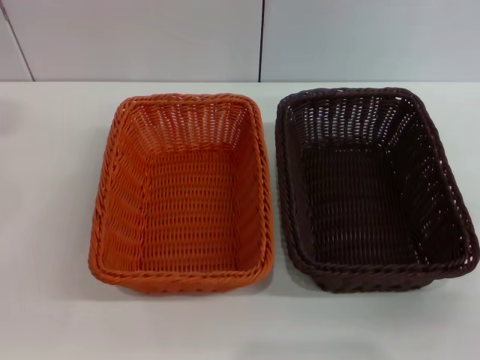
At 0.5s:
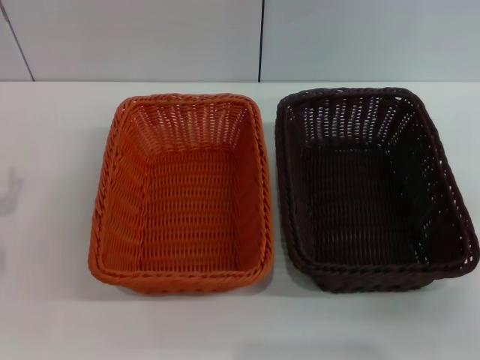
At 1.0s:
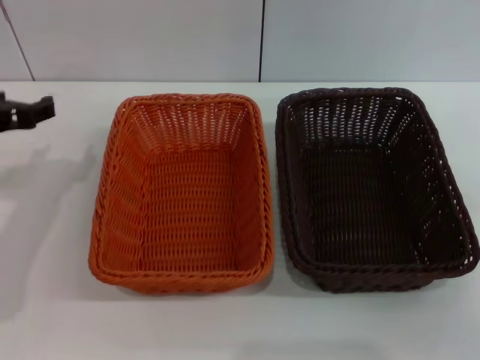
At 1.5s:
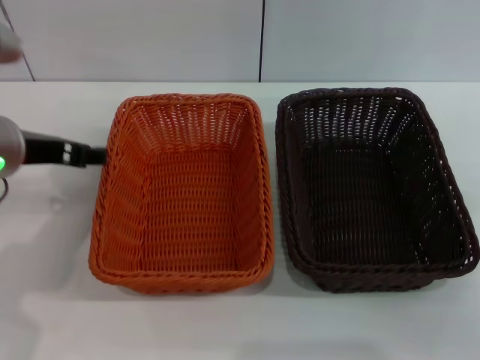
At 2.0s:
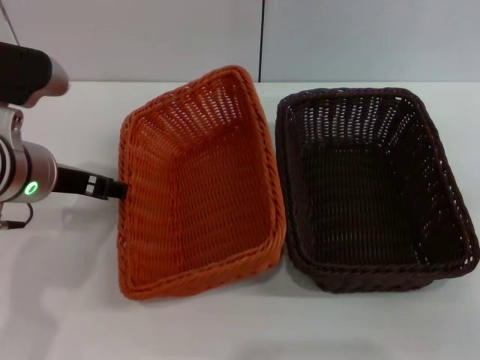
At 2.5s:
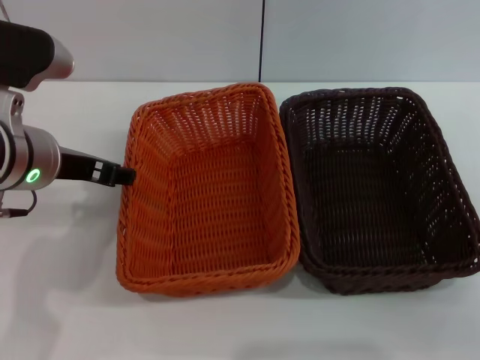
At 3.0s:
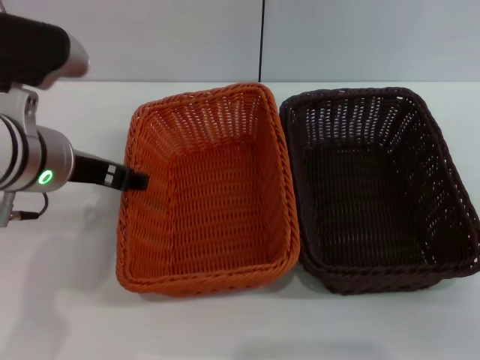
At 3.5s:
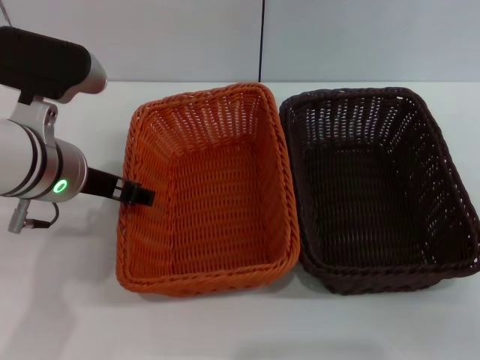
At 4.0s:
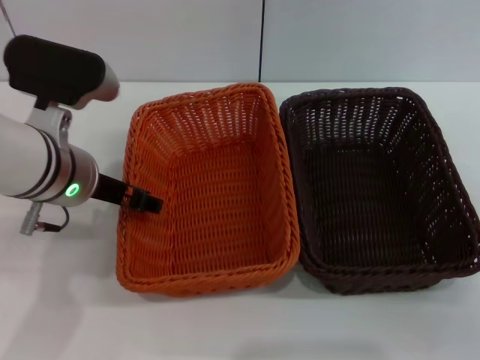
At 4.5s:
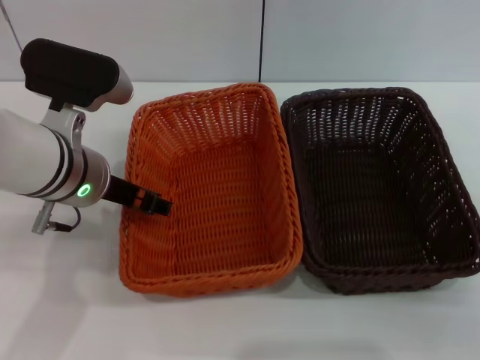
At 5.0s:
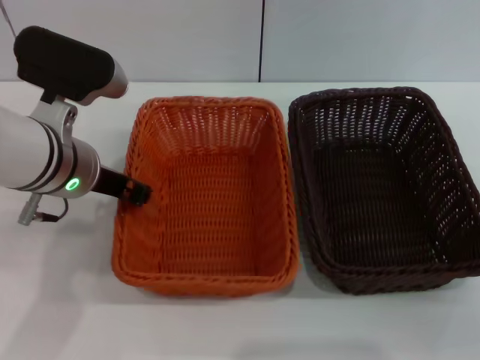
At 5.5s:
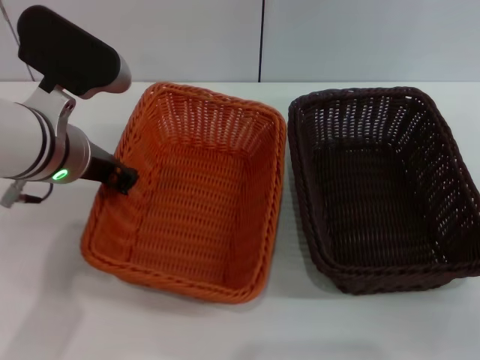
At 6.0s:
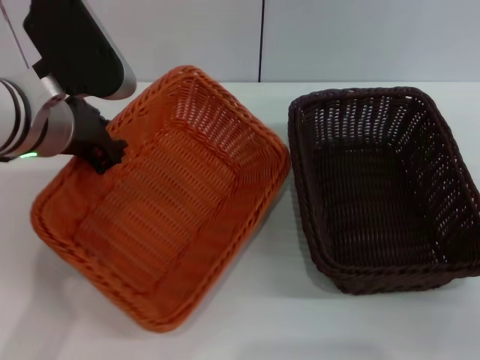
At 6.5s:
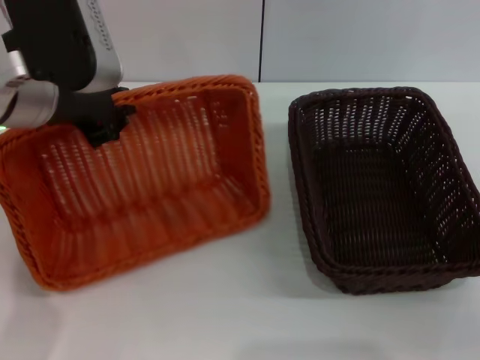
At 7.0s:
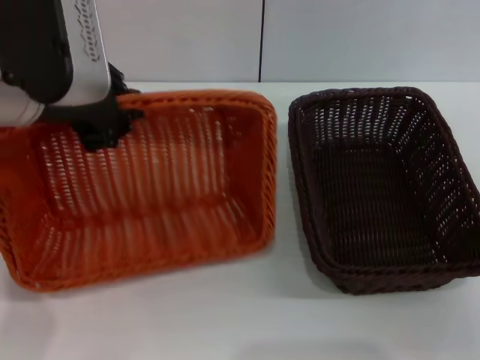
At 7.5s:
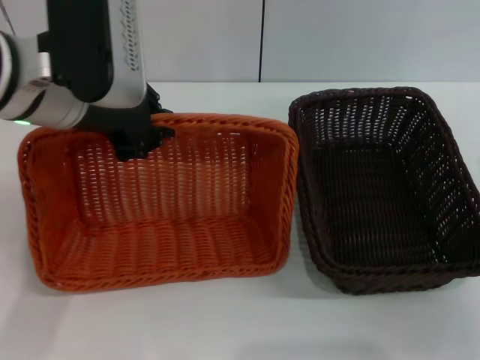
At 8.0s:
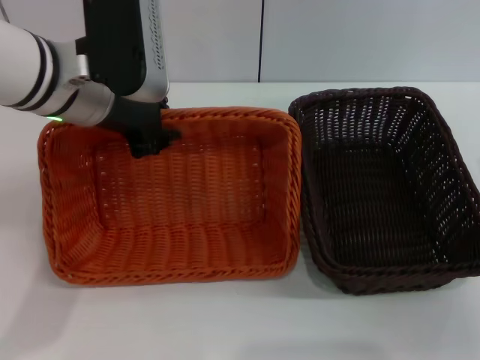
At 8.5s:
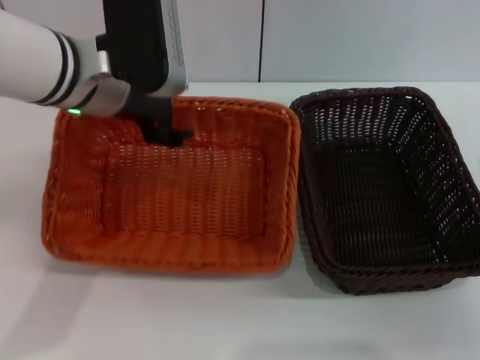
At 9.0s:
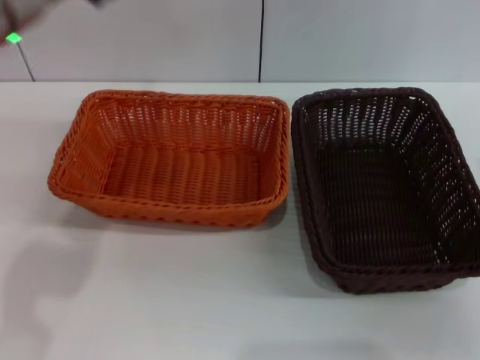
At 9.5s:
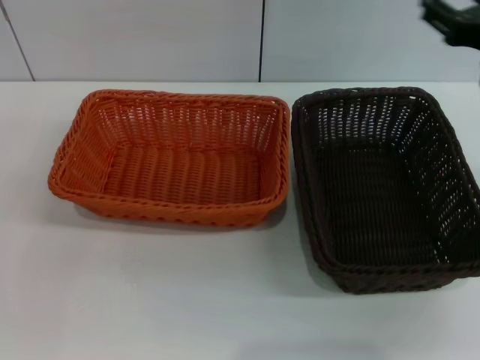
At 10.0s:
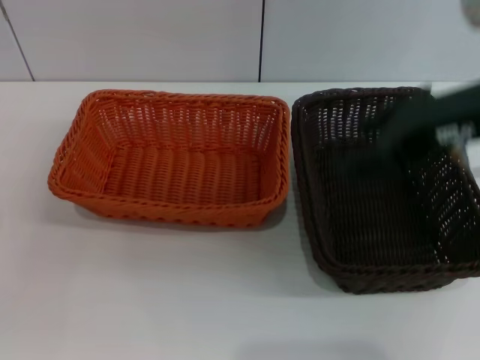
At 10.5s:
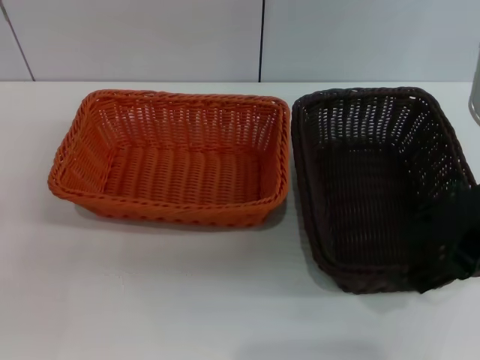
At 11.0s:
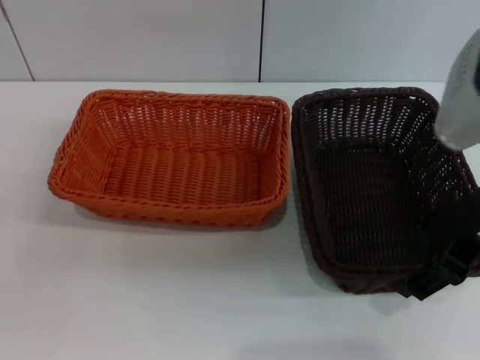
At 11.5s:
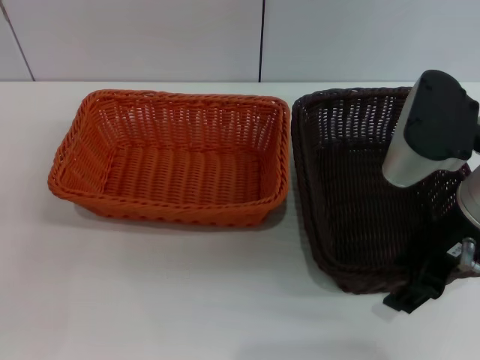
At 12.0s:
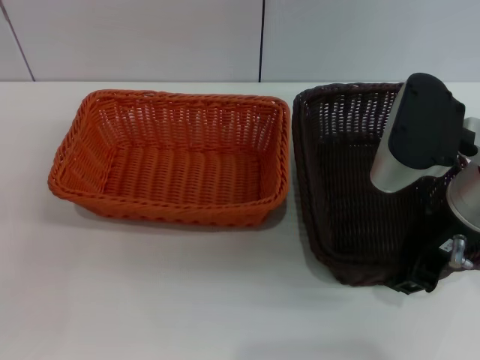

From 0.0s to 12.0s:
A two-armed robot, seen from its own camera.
Step, from 0.0s to 5.5s: Pick up the light basket with the left gripper.
Step, from 6.0s to 8.5s: Place the light basket in the center of view with the left gripper.
From 0.0s to 2.0s: The left gripper moves upward, to the right and forward, about 20 cm.
From 2.0s to 4.0s: The grippers move only a little.
From 4.0s to 6.0s: The left gripper closes.
From 8.0s to 10.0s: The left gripper moves to the left, downward and backward, approximately 30 cm, and opens up. The right gripper shifts some 20 cm upward and to the left.
From 10.0s to 12.0s: The right gripper goes about 5 cm downward, and closes.

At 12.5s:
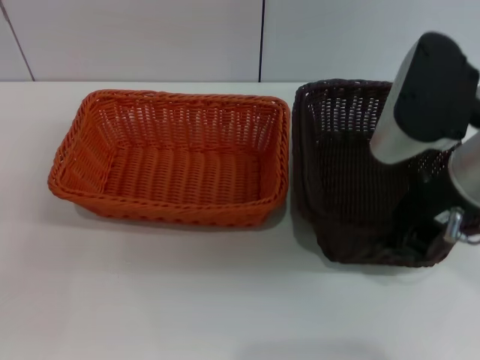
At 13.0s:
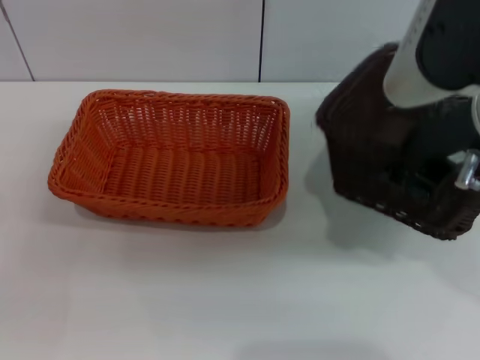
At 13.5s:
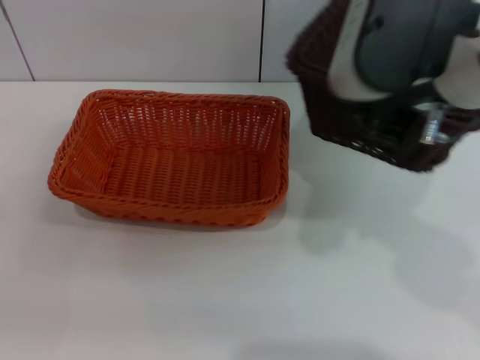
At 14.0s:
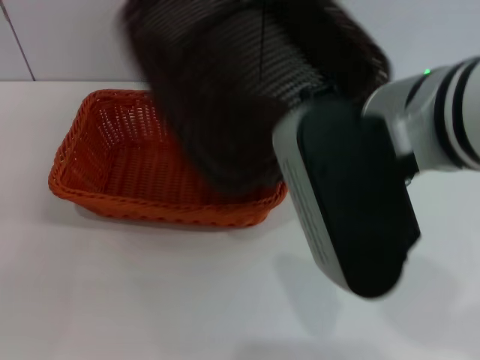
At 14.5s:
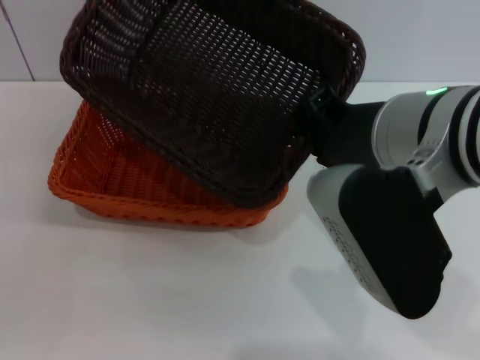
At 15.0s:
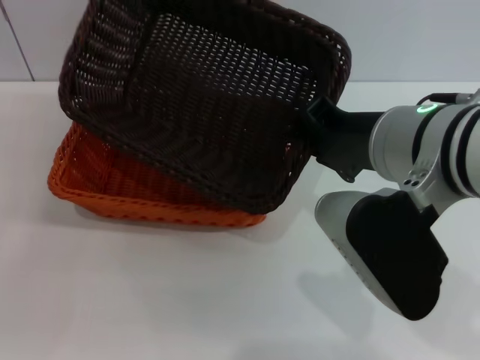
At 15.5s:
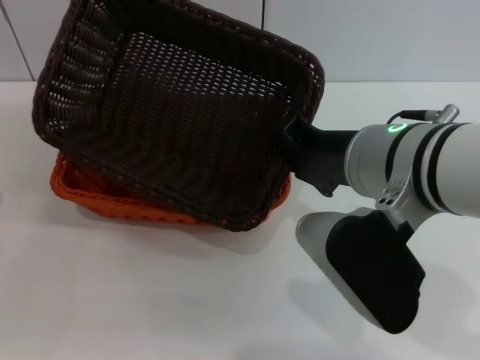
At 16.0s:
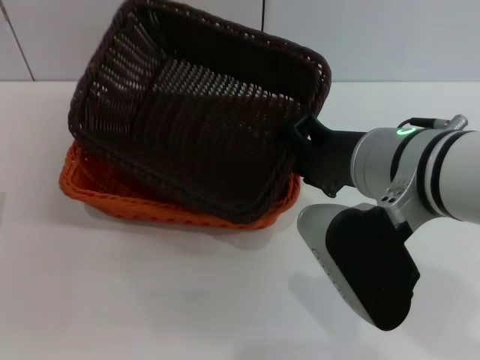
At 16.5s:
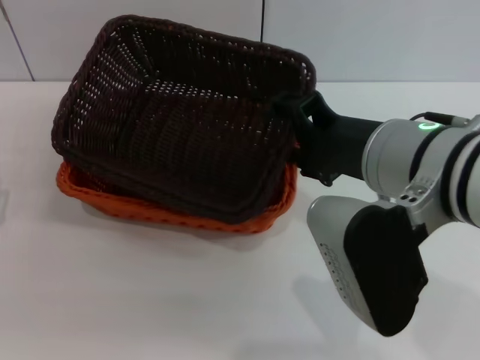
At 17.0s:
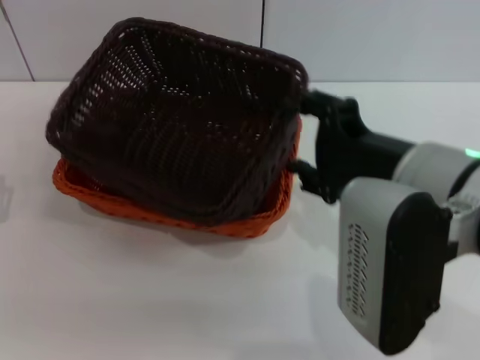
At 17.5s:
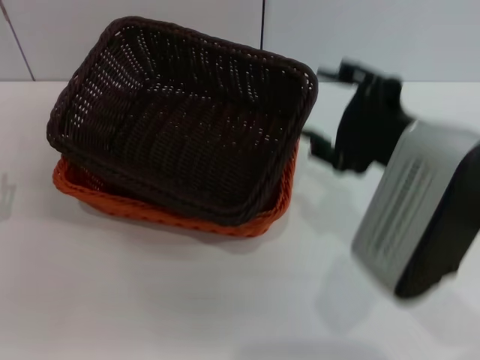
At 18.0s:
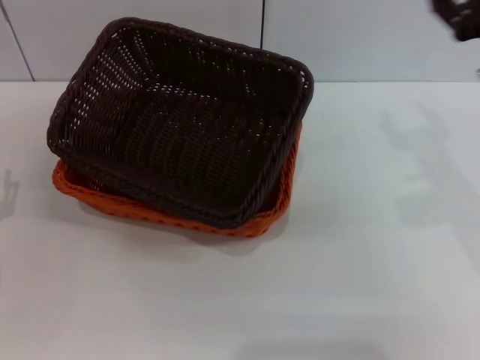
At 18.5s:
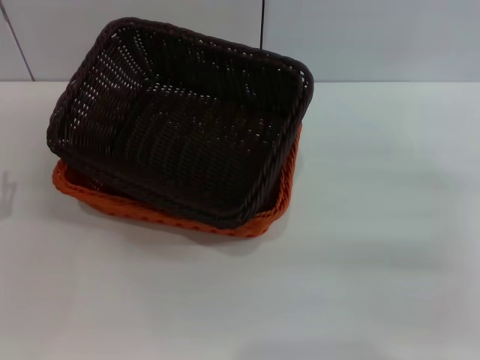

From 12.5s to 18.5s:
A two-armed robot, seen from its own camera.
Step, from 13.0s to 16.5s: Place the dark basket on the light basket with the right gripper.
From 12.5s to 14.5s: The right gripper moves to the left, roughly 5 cm.
From 14.5s to 16.5s: The right gripper opens its fingers.
From 16.5s to 18.5s: The right gripper is displaced to the right and downward by about 25 cm.

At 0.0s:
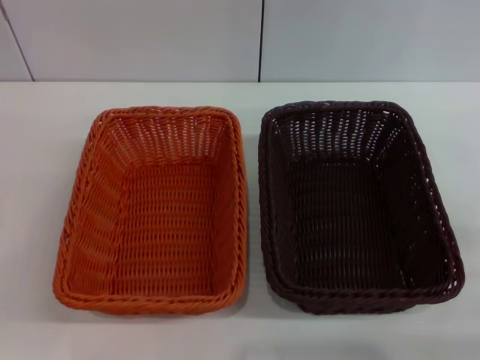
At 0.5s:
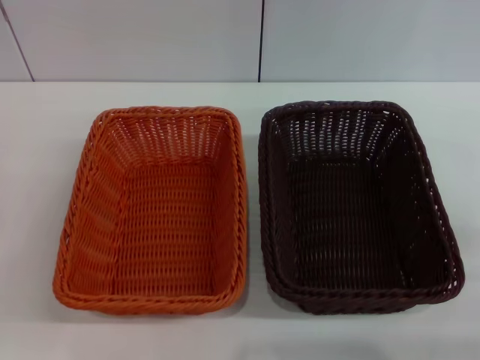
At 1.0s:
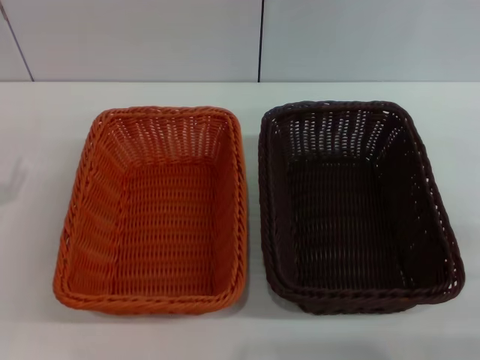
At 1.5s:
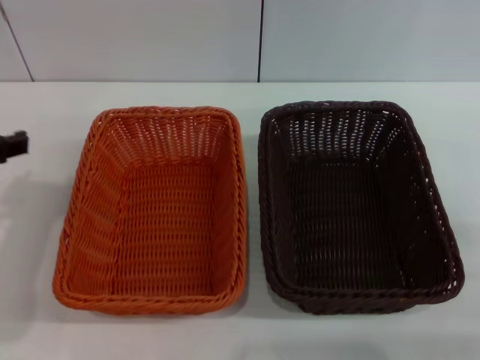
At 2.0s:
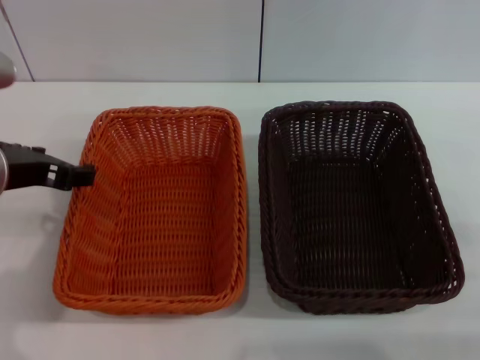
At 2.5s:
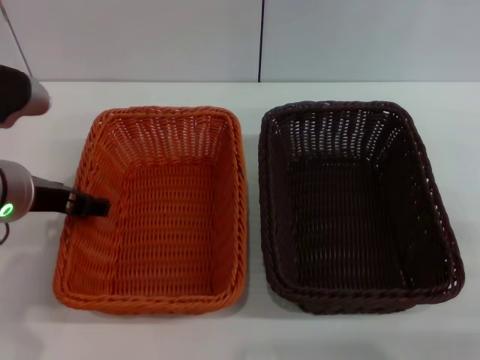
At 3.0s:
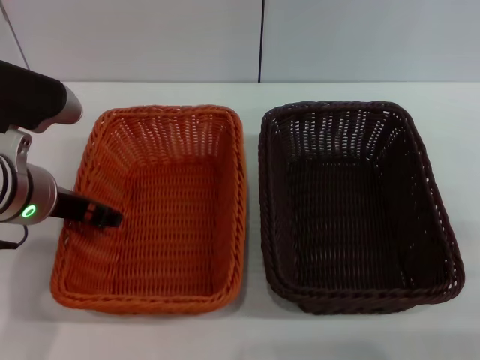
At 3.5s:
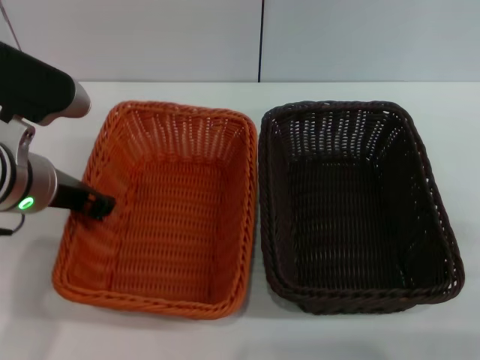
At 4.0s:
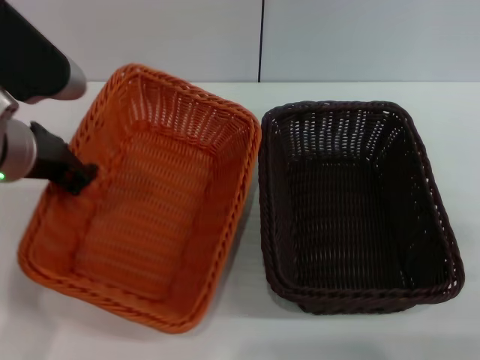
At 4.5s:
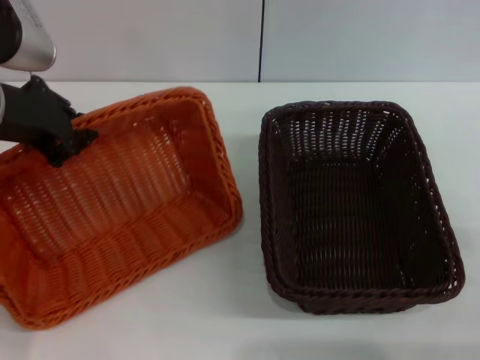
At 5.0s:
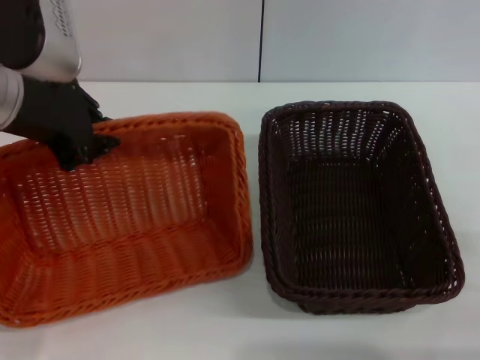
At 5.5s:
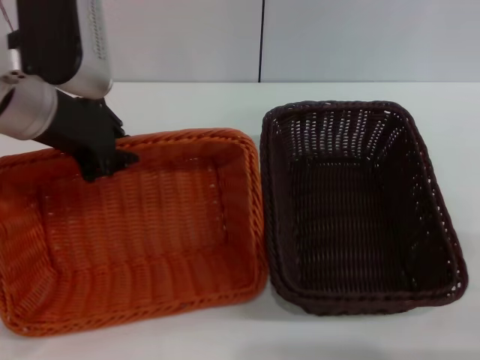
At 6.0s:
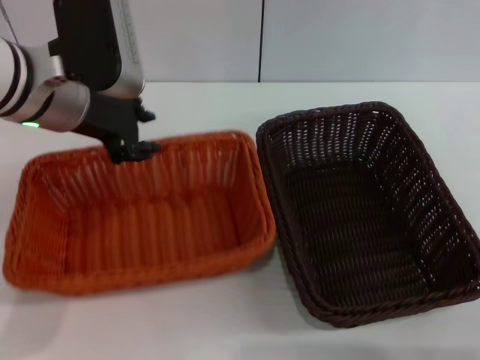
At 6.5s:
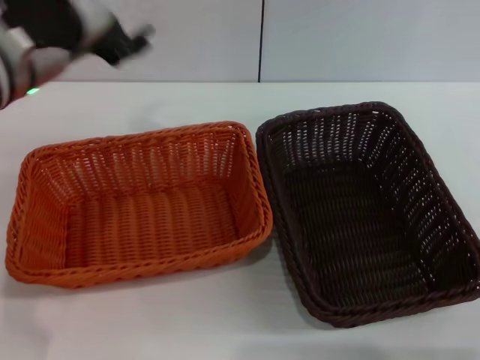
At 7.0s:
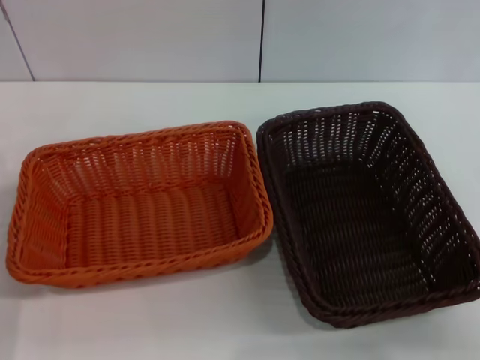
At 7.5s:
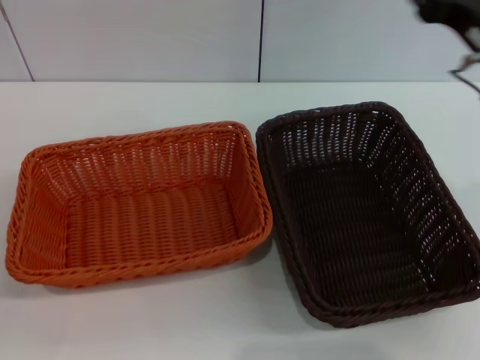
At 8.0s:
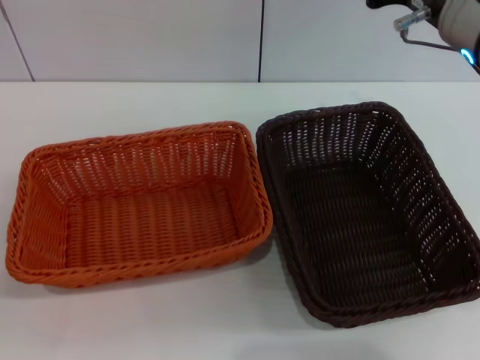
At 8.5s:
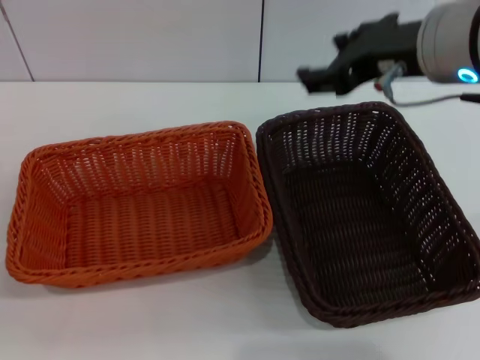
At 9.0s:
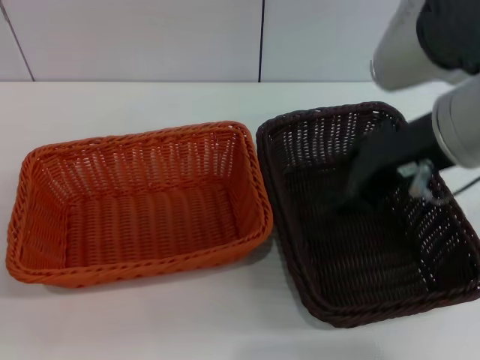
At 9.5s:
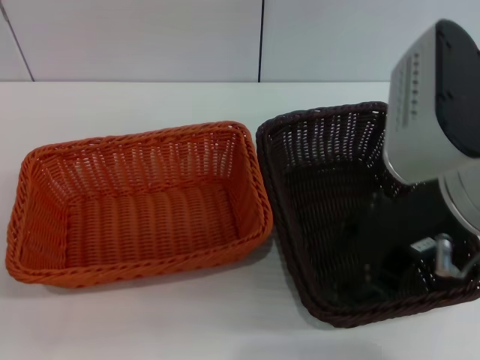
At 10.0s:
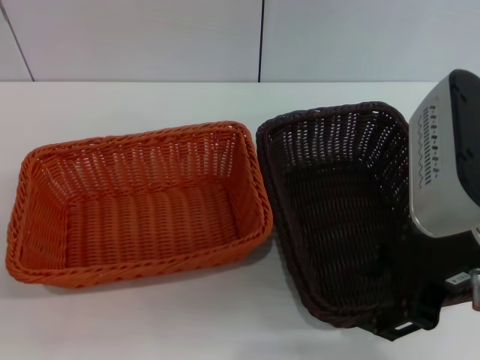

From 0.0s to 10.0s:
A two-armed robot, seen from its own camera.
Step, from 0.0s to 3.5s: Pick up the light basket with the left gripper.
Step, from 4.0s to 6.0s: Place the light basket in the center of view with the left gripper.
From 0.0s to 2.0s: The left gripper shifts roughly 20 cm upward, to the right and forward.
From 2.0s to 4.0s: The left gripper closes its fingers.
From 4.0s to 6.0s: The left gripper shifts by some 5 cm.
From 6.0s to 8.0s: The right gripper moves upward, to the left and forward, roughly 30 cm; the left gripper moves downward, backward and to the left, some 30 cm, and opens its fingers.
From 8.0s to 10.0s: The right gripper heads backward, covering approximately 10 cm.
